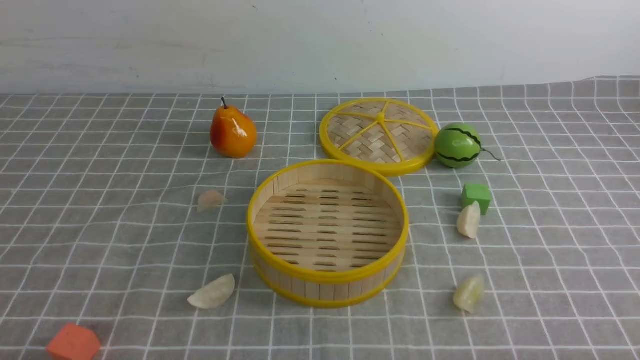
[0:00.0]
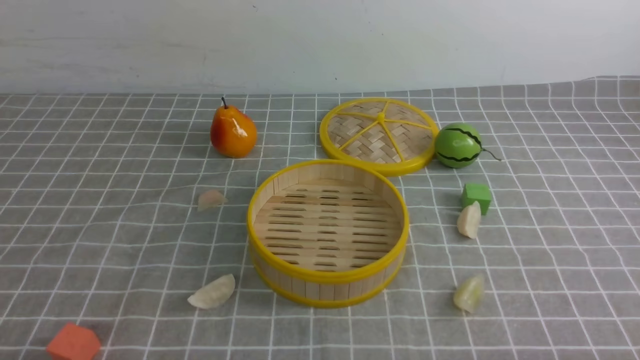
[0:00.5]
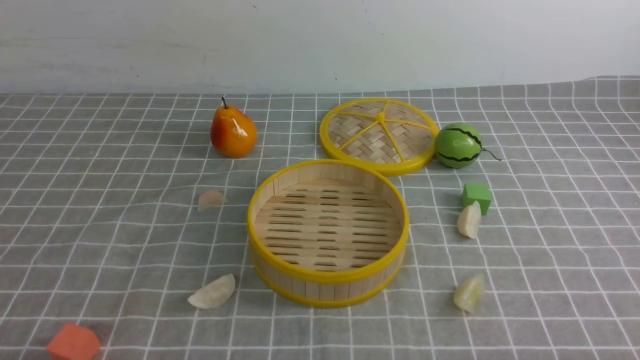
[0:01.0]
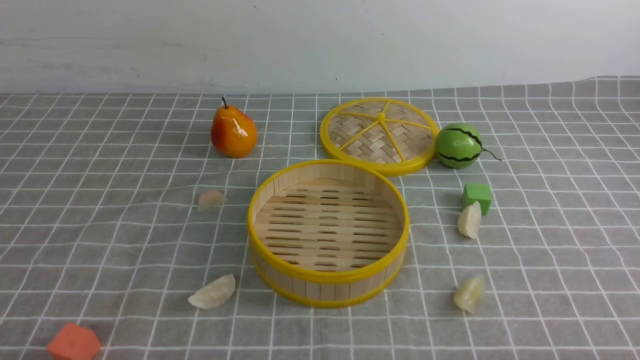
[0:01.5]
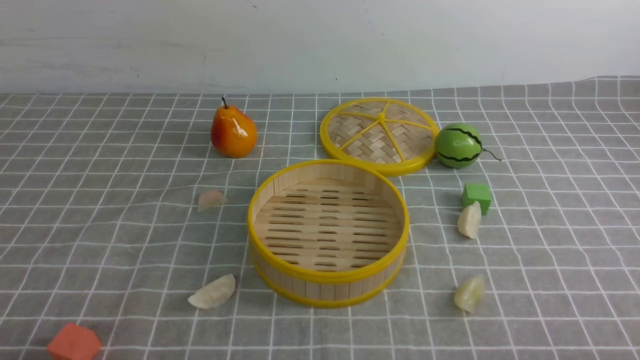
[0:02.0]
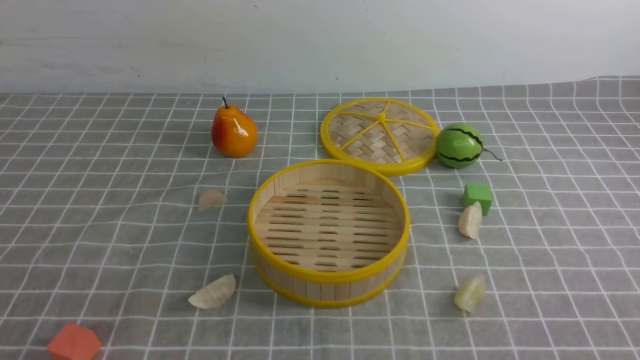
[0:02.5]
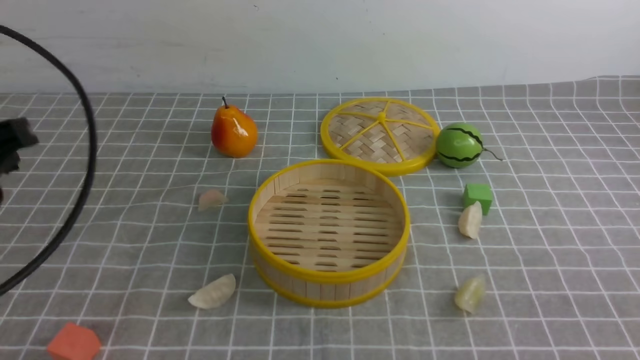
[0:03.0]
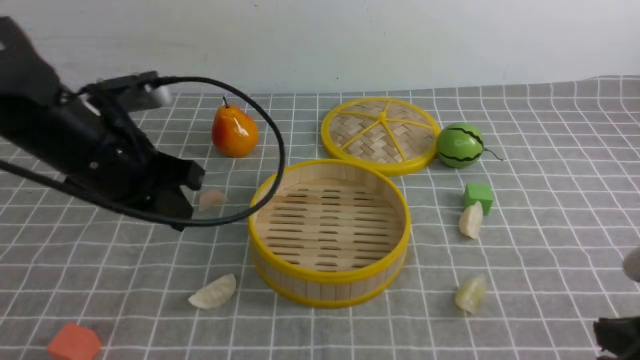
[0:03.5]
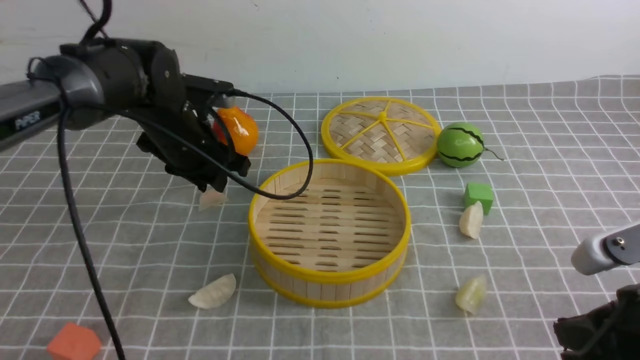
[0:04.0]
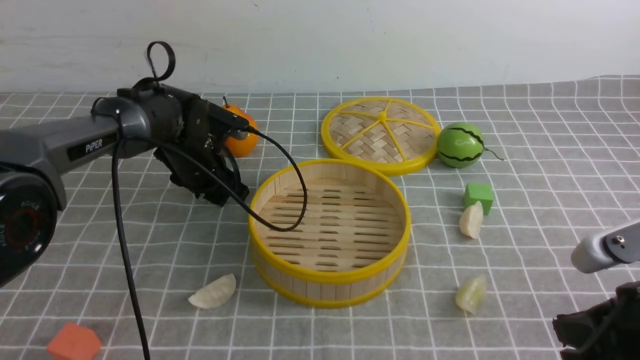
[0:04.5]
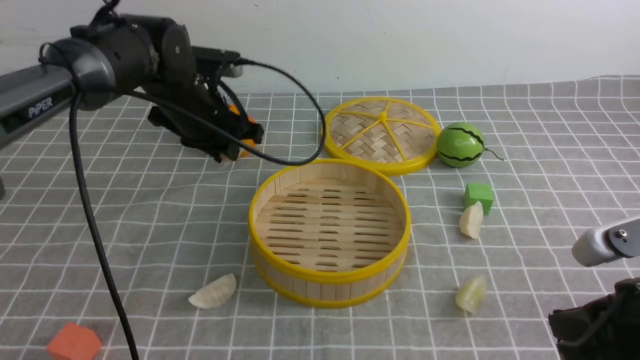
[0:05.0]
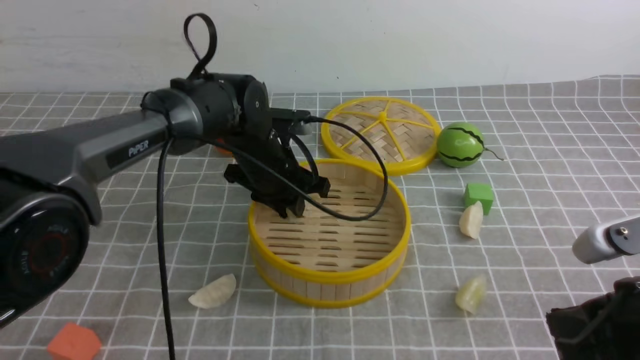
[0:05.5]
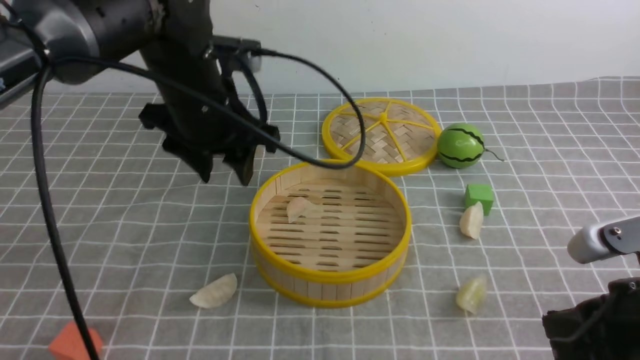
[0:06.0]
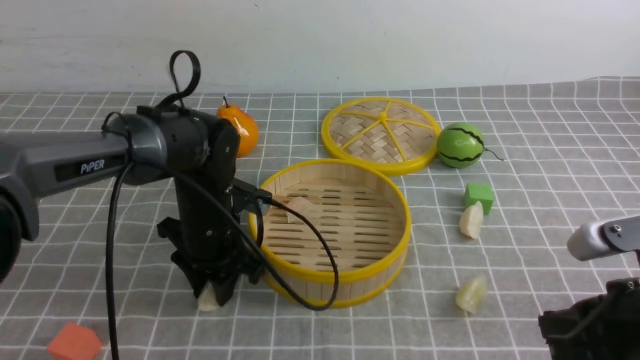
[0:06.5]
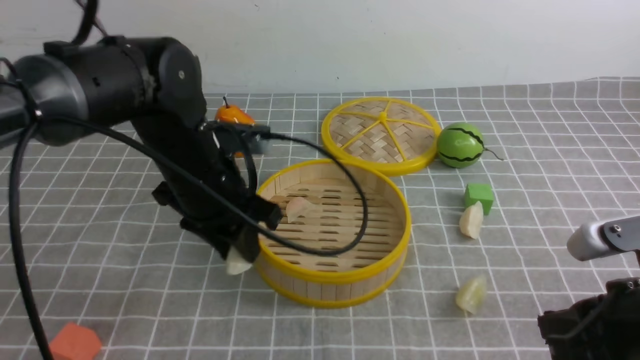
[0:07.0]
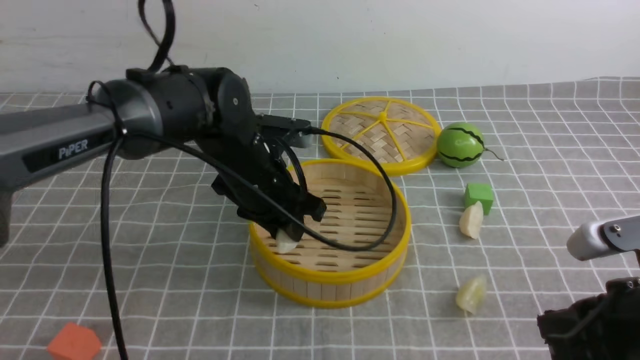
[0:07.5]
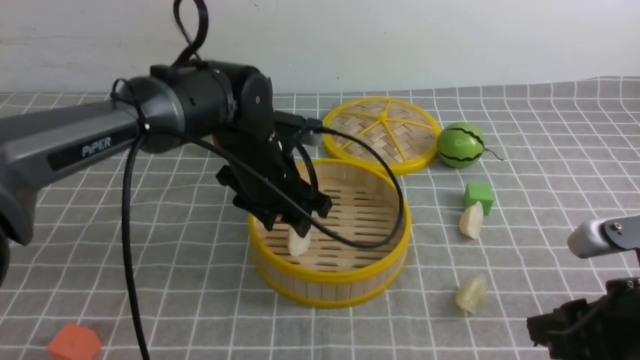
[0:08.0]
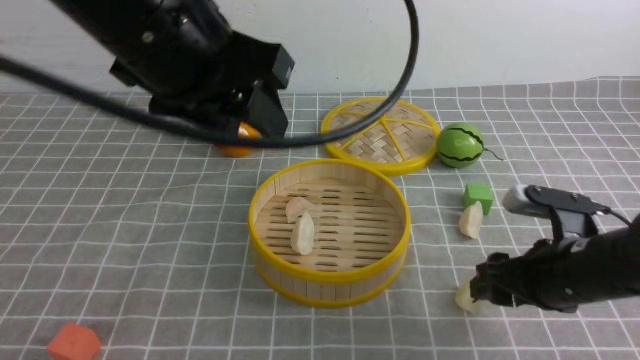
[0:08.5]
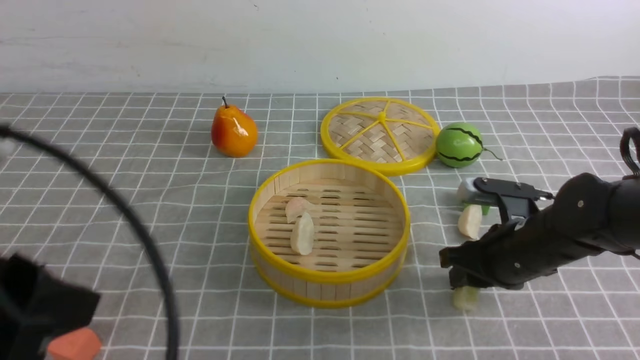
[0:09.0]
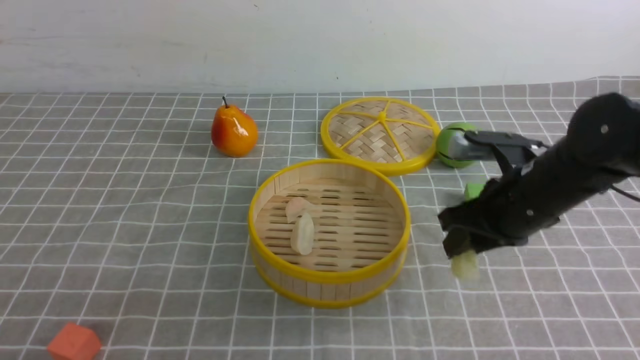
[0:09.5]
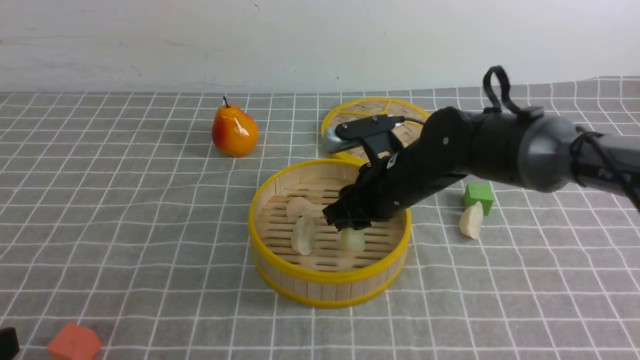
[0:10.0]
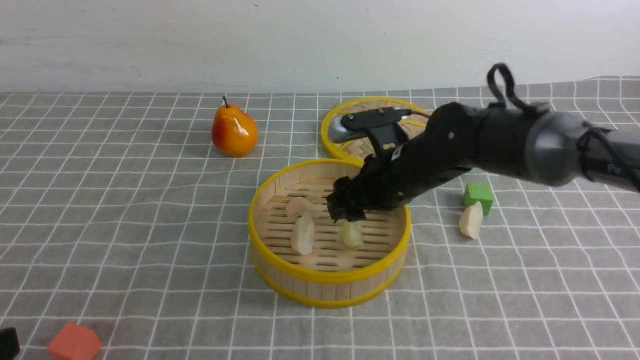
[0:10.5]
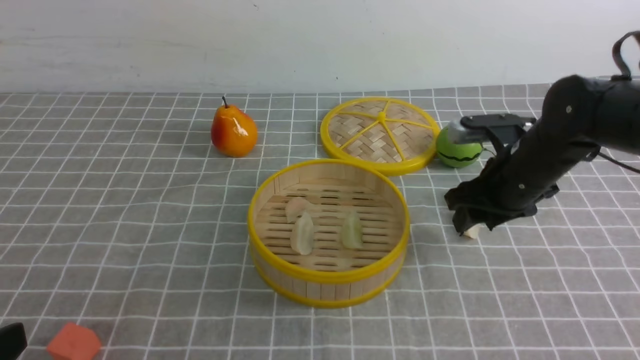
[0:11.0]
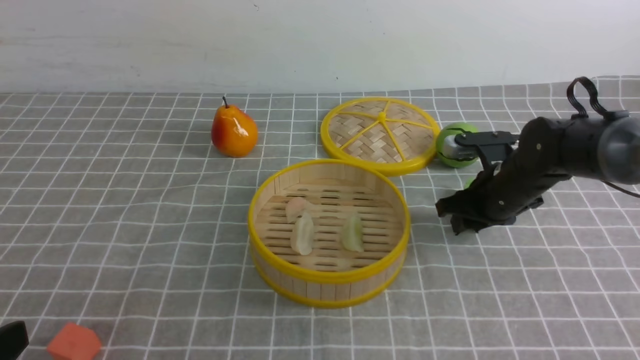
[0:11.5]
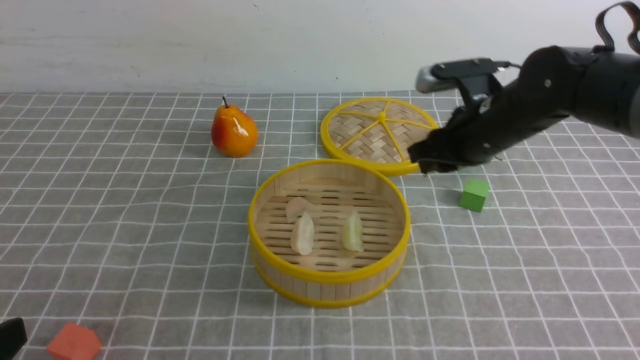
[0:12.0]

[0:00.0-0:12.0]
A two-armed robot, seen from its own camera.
Task of the whole recording: put the dumplings into the steamer on the table with the grey tablecloth.
Step, 0:00.0 to 0:04.5: use the left arm to grab a dumpling.
Step, 0:07.0 to 0:07.5: use the left arm to put the dumpling into the steamer.
Step, 0:08.5 to 0:09.0: use the right arm to grab a dumpling.
Step, 0:10.0 to 0:10.5: use the right arm to put the dumpling into the steamer.
Step, 0:11.0 to 0:11.5: use the right arm to grab a dumpling.
0:02.0 to 0:04.0: The left gripper moves forward, roughly 35 cm, and closes and opens again. Meanwhile the right gripper goes roughly 10 cm forward and to the left, and closes its fingers.
0:04.0 to 0:06.0: The left gripper is displaced to the right by approximately 5 cm, and opens.
0:06.0 to 0:08.0: The right gripper opens up; the left gripper closes, then reopens.
0:08.0 to 0:10.0: The right gripper shifts roughly 25 cm forward and to the left, and opens, then closes again; the left gripper travels backward and to the left by about 35 cm, and closes.
0:10.0 to 0:12.0: The right gripper moves to the right, about 10 cm, and opens and closes again.

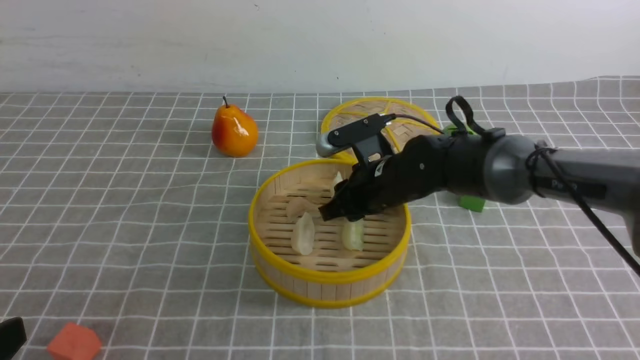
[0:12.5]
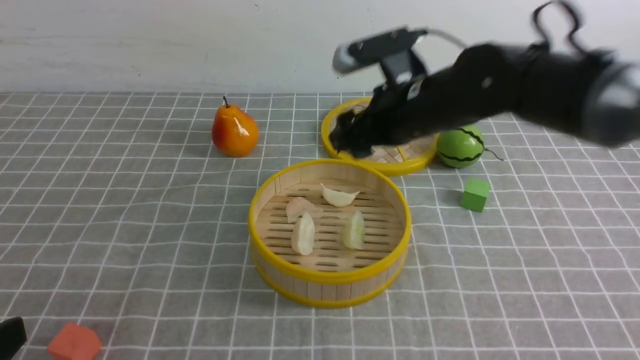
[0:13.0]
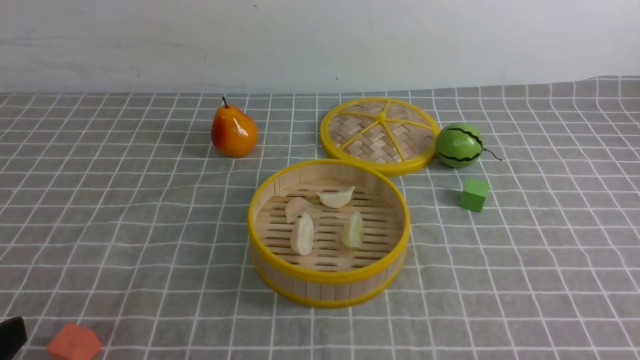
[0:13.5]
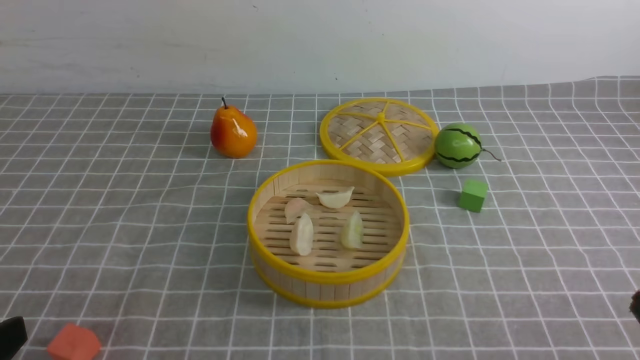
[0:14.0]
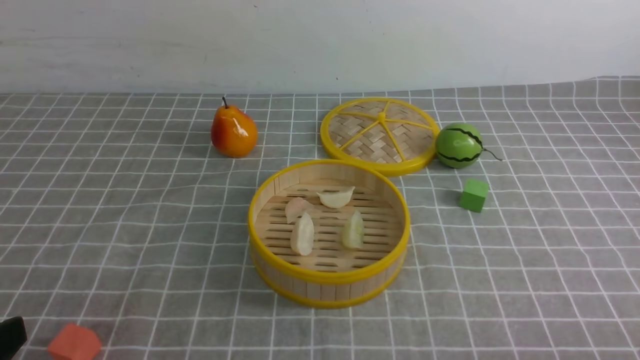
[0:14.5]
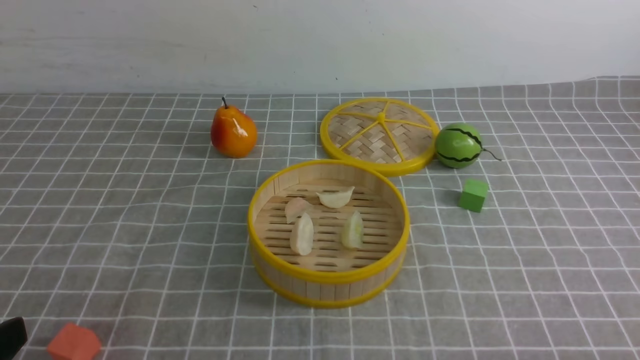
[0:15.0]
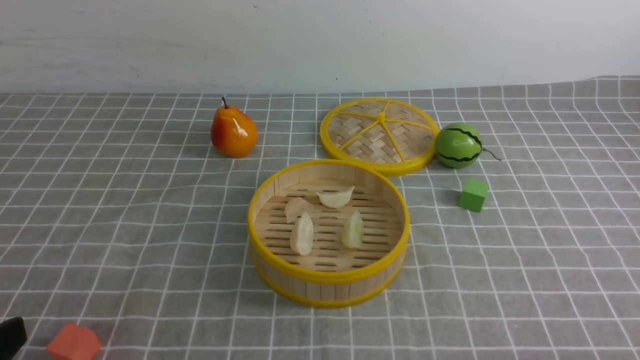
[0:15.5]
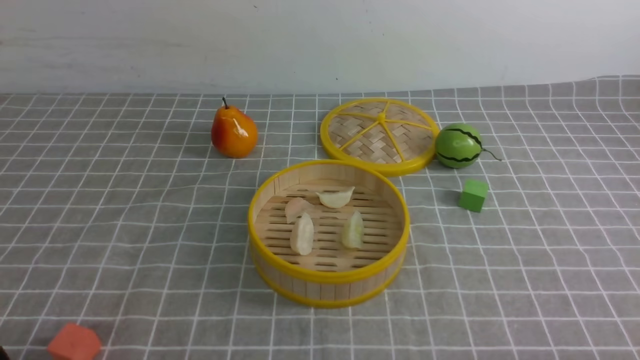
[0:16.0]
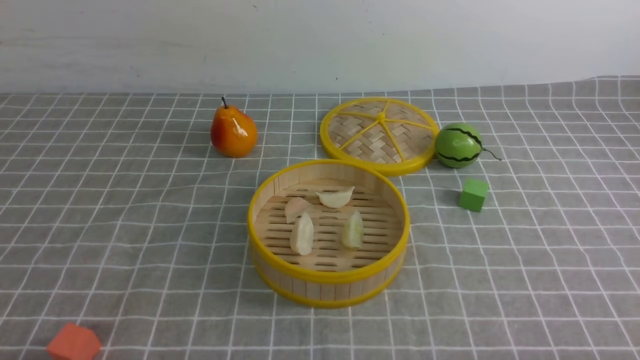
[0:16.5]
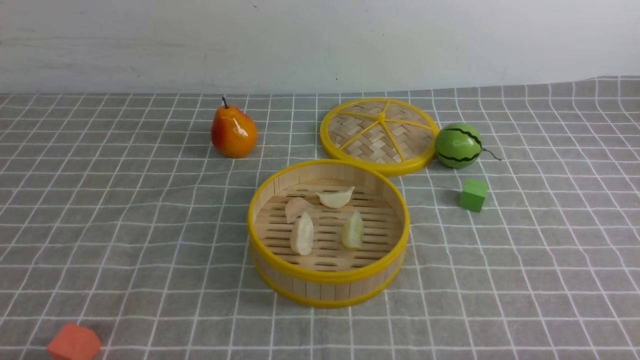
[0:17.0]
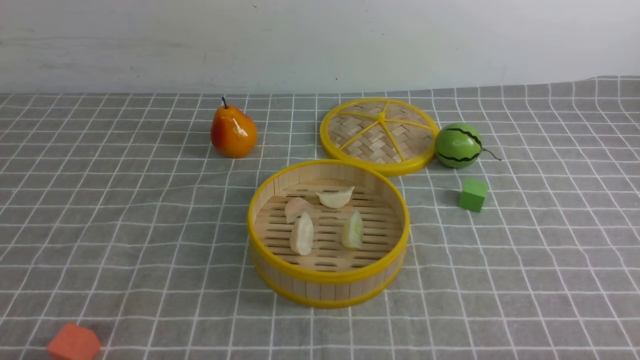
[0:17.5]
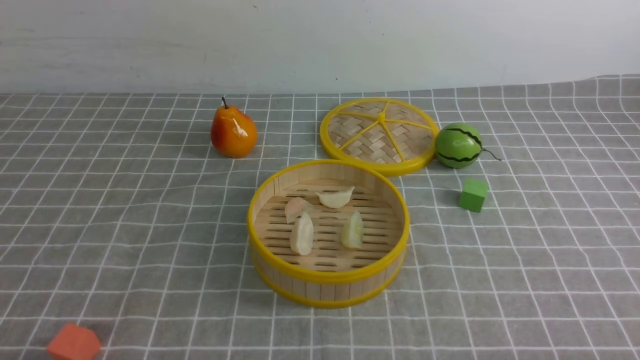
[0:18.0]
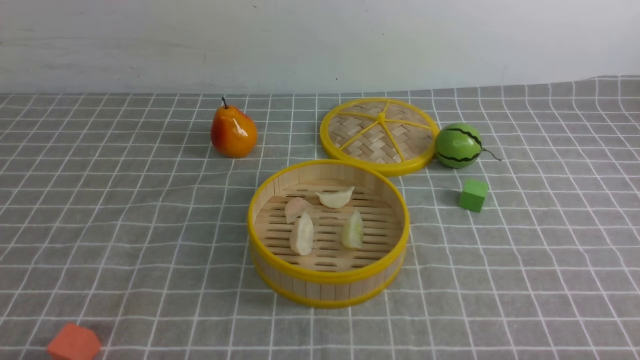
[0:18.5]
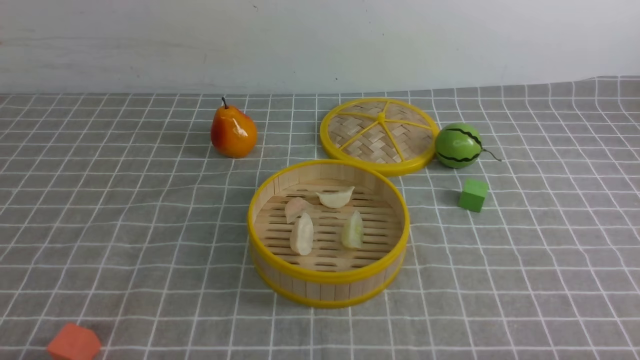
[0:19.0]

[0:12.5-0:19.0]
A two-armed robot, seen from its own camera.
Task of the whole recording: put the dumplings into the steamer on the table with the grey tablecloth.
0:12.5 to 0:14.5: The right gripper goes roughly 40 cm backward and to the right, and closes its fingers.
0:17.0 to 0:19.0: Both grippers stay put.
